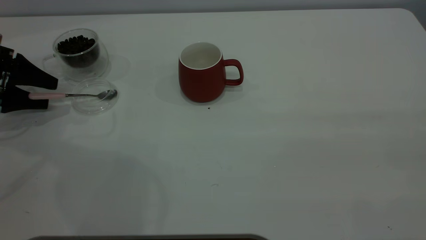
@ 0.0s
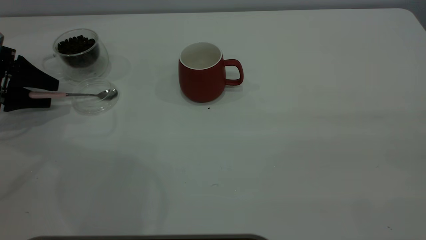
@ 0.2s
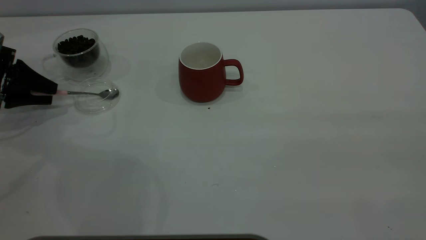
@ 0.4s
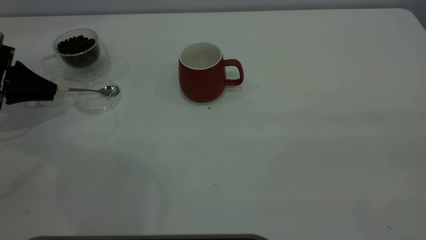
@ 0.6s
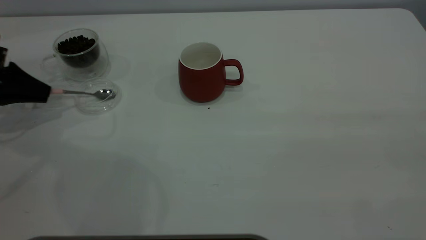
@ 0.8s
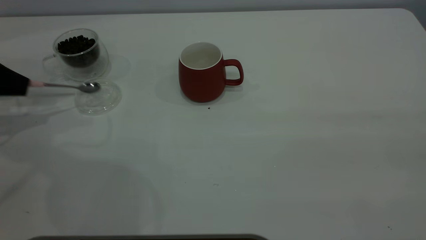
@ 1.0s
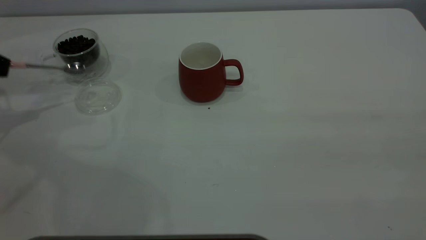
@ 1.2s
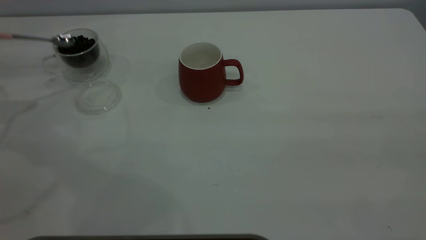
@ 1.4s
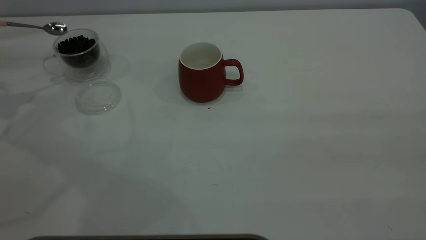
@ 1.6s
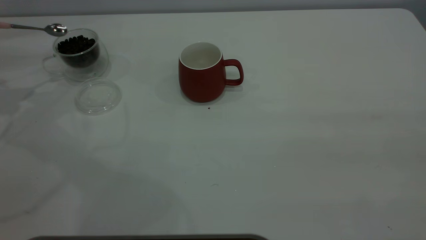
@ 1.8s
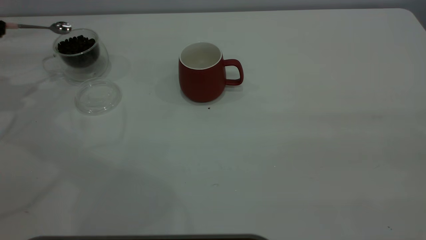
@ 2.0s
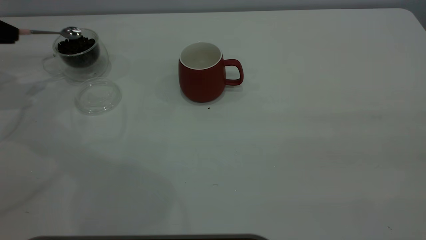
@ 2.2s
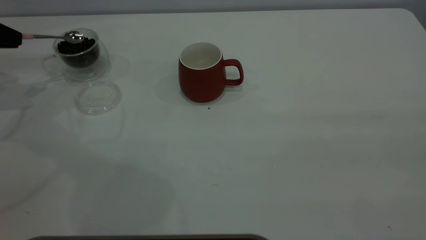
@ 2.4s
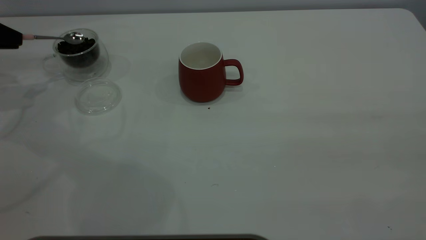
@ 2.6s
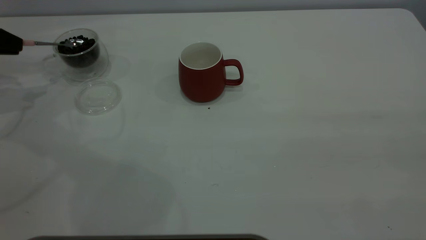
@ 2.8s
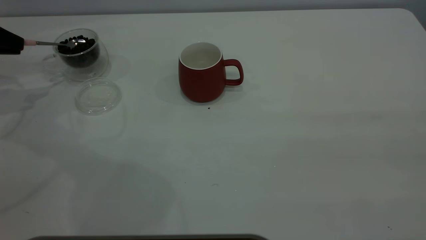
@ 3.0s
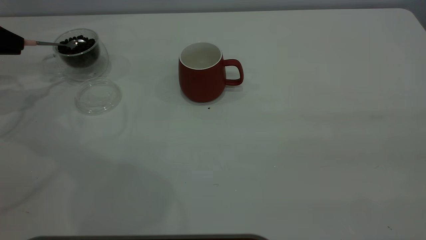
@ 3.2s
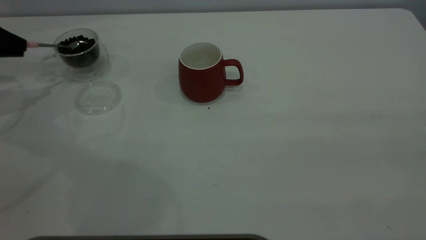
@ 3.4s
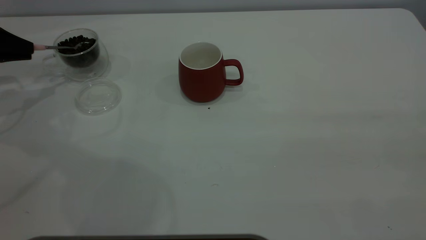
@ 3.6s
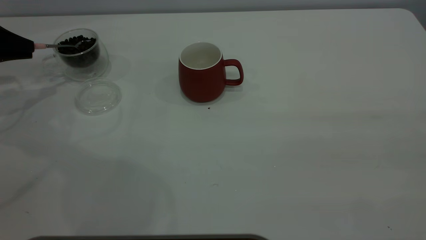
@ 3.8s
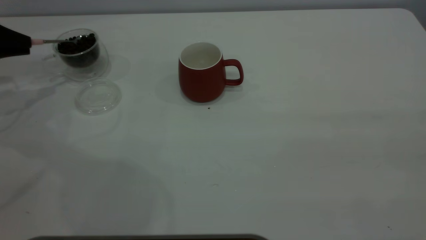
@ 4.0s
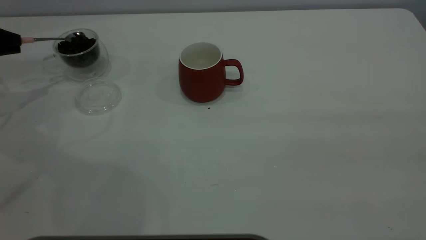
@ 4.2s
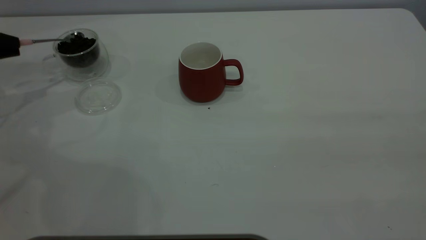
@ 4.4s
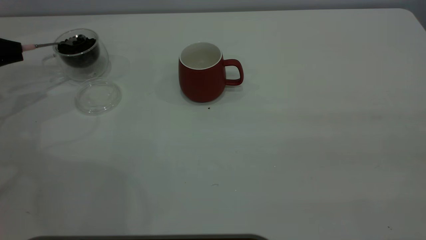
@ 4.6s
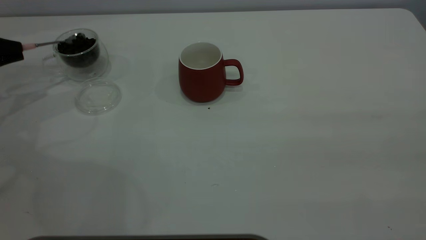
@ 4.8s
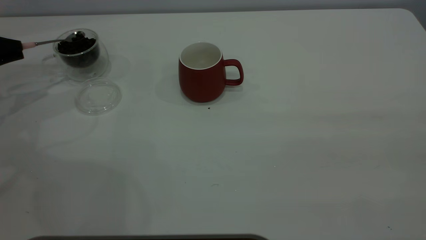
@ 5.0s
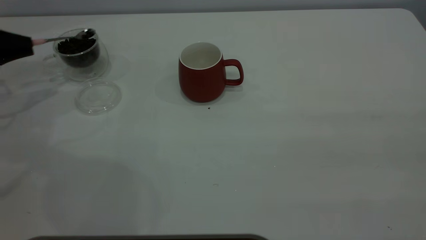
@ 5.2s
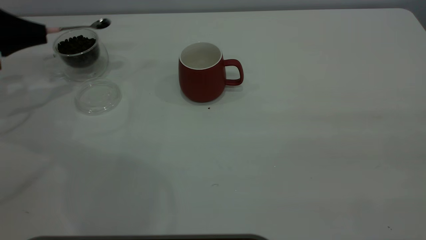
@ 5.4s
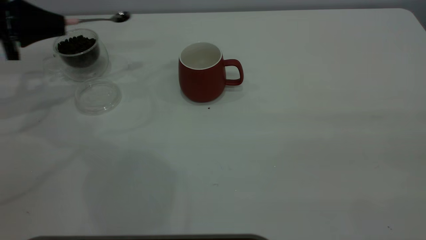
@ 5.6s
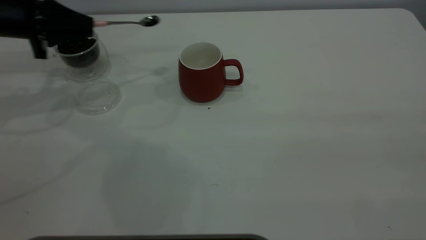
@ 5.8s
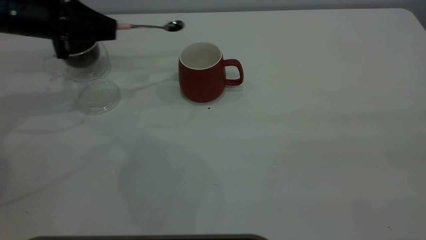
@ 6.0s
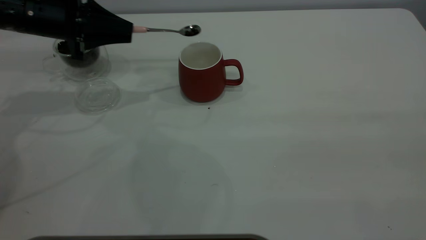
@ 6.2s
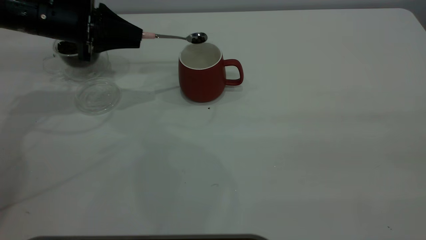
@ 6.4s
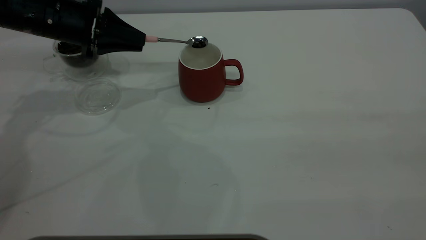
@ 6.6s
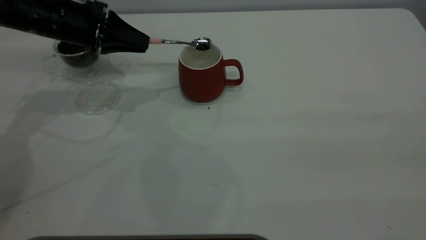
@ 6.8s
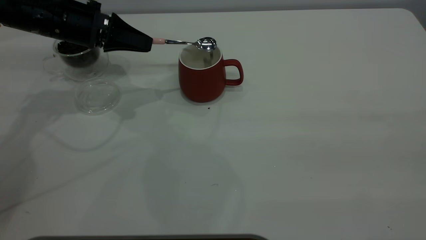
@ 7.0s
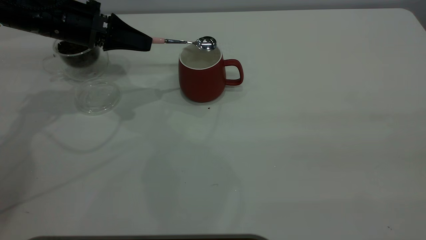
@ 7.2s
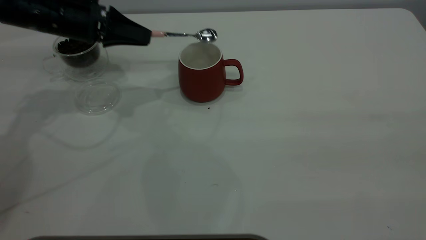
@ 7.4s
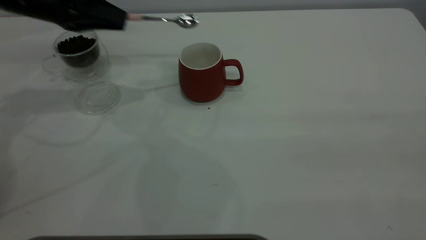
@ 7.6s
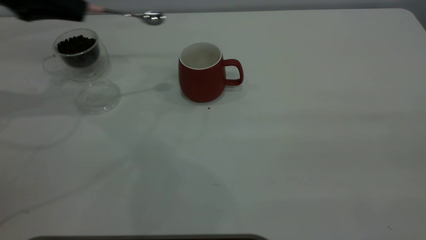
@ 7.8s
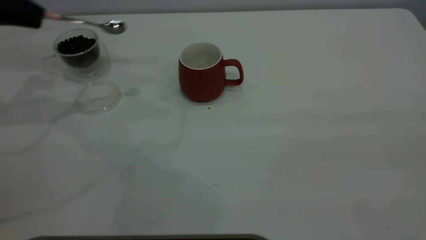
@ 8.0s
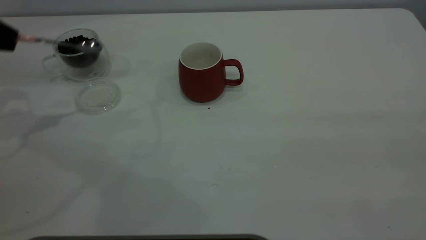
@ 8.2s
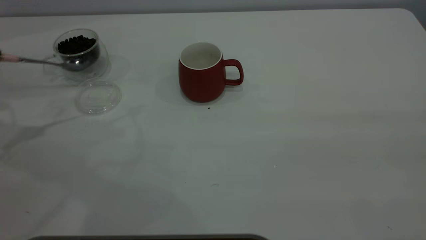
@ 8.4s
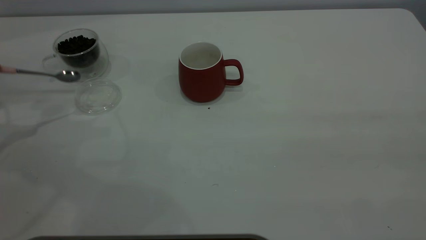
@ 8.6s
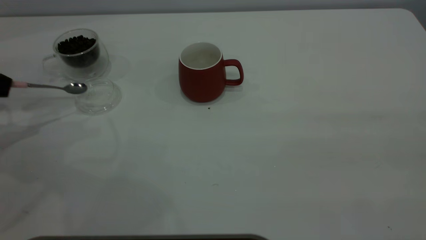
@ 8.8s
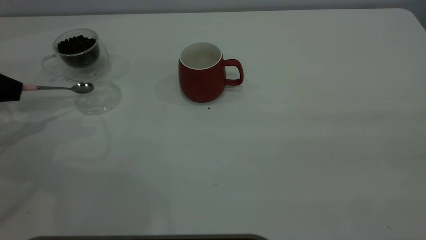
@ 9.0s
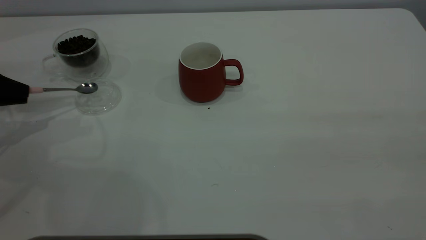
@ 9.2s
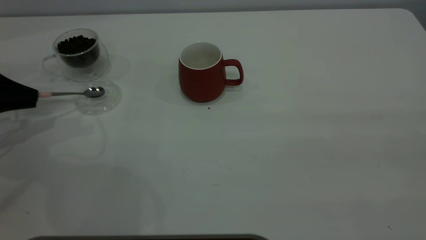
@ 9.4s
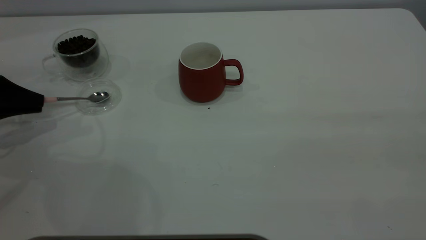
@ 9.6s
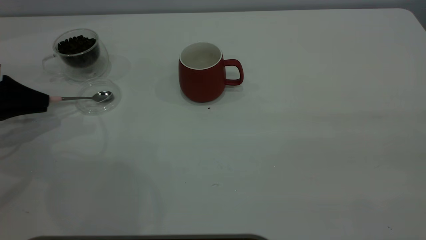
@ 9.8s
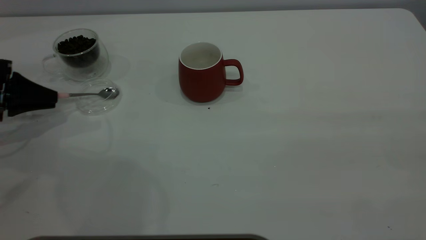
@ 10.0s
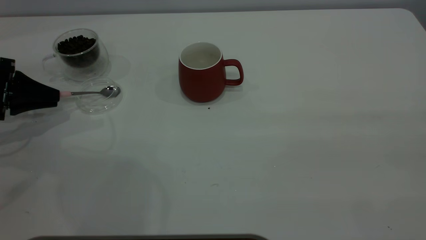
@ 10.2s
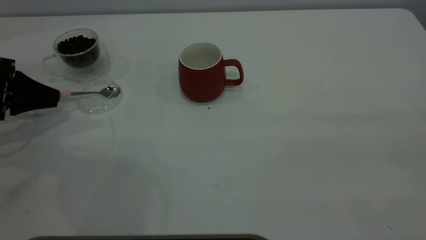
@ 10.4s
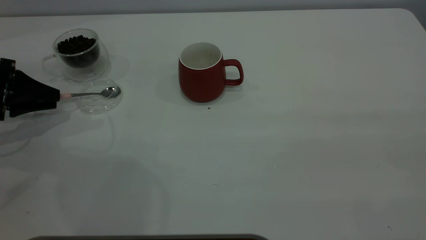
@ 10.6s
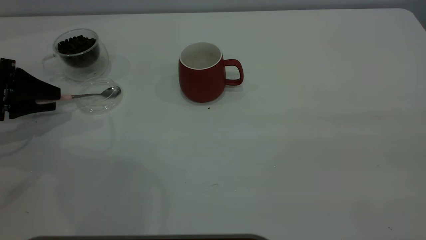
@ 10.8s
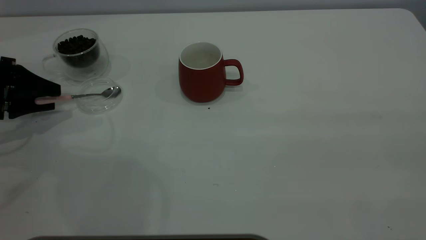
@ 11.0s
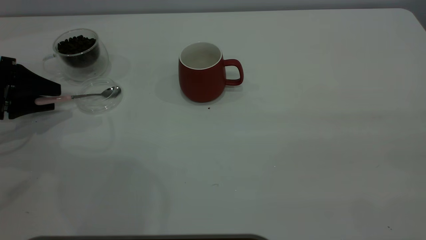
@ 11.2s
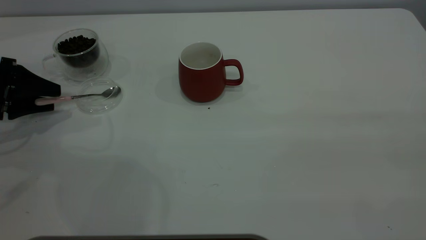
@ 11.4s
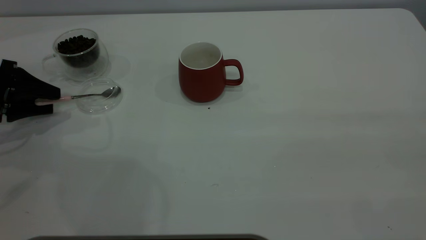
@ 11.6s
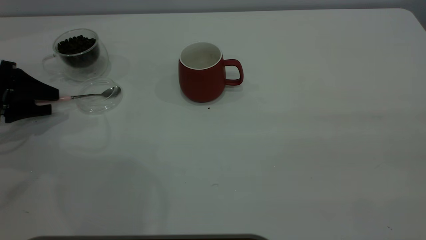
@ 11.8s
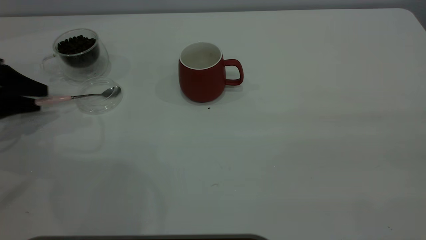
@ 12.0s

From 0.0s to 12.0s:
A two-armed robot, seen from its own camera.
Task of the whole recording: the right gripper place the red cup in the center of the table, the left gripper take the pink spoon from the cup lid and scoop out the coffee beans from the coffee cup and put them into the red cup, the left gripper put the spoon back into the cup lid.
Step, from 1.6s to 7.4s: Scoop a spoonful of beans into the cup.
From 0.0s to 1.6s: The left gripper is displaced upward by roughly 15 cm, and closes up.
From 1.6s to 3.0s: The left gripper shifts approximately 5 cm downward.
From 4.4s to 6.0s: The left gripper travels to the right by some 15 cm.
From 7.6s to 9.0s: The left gripper moves to the left, backward and downward, about 20 cm.
From 9.0s to 10.4s: The left gripper shifts by some 5 cm.
From 10.4s to 12.0s: The left gripper opens its fingers.

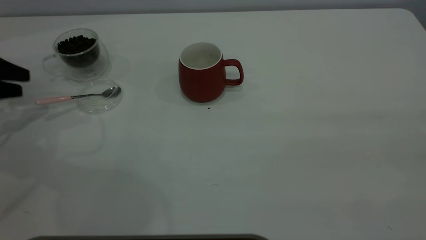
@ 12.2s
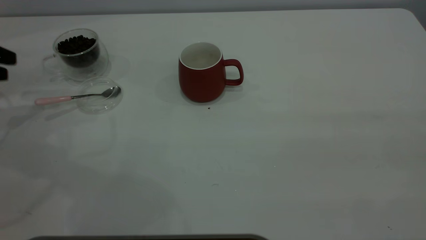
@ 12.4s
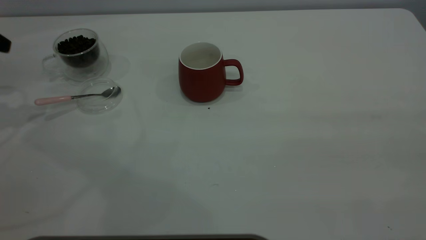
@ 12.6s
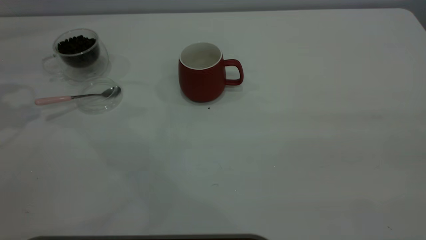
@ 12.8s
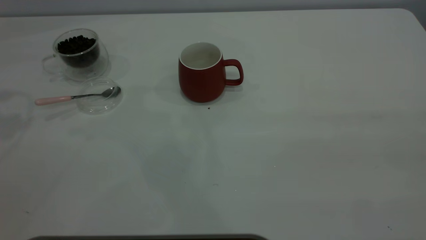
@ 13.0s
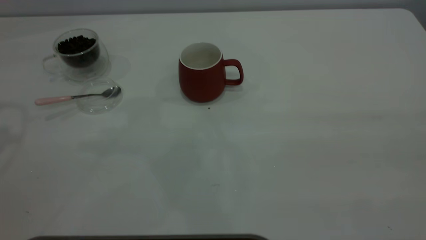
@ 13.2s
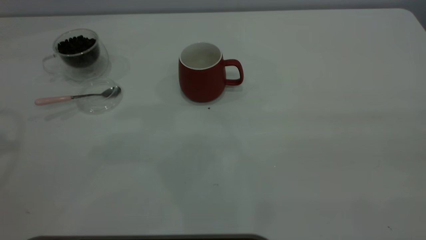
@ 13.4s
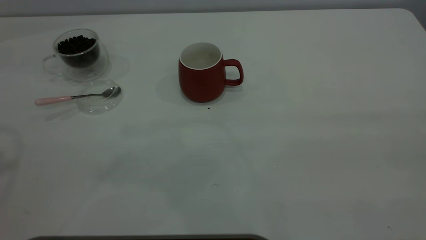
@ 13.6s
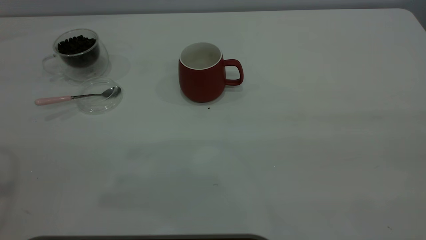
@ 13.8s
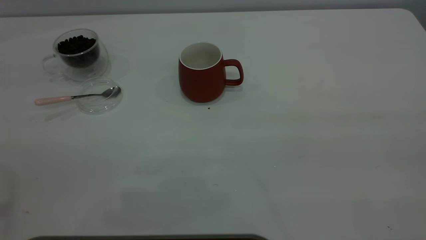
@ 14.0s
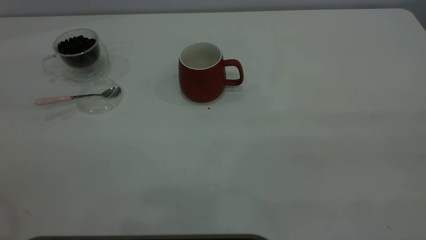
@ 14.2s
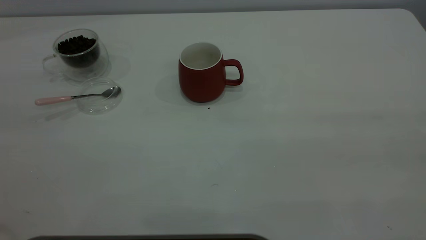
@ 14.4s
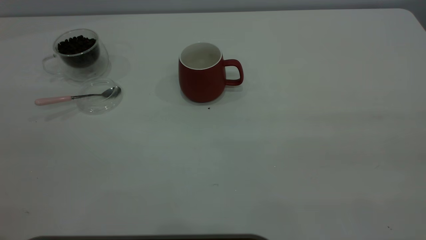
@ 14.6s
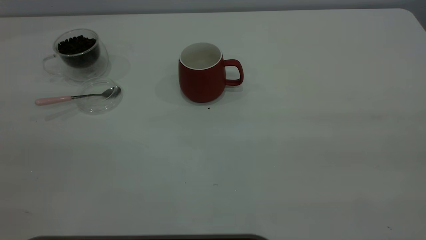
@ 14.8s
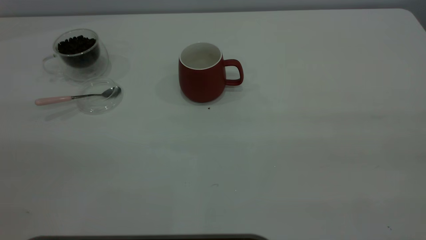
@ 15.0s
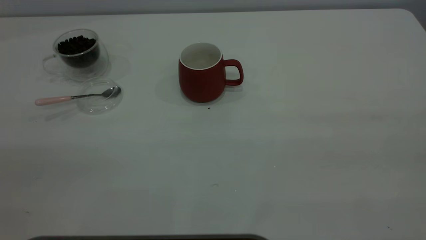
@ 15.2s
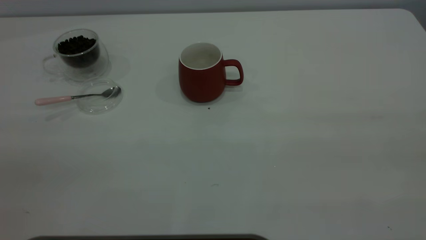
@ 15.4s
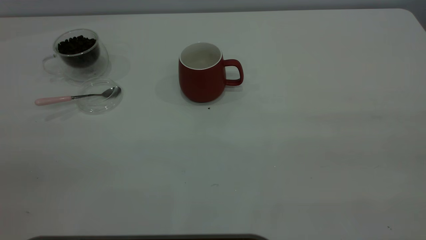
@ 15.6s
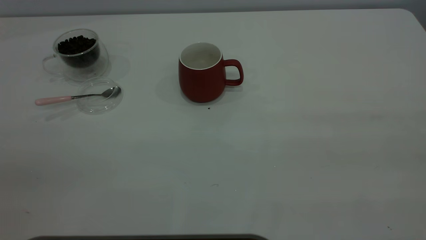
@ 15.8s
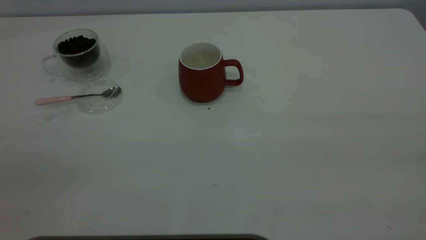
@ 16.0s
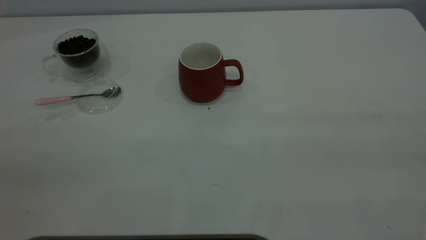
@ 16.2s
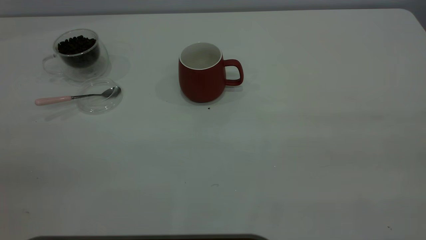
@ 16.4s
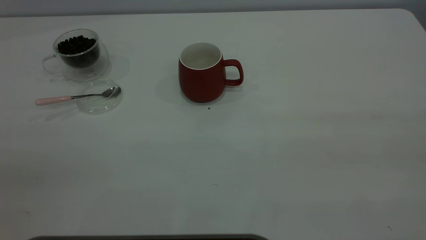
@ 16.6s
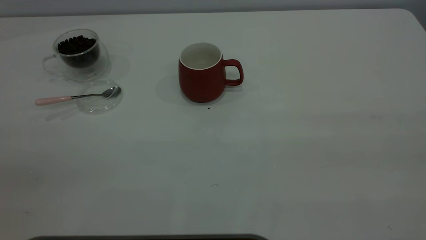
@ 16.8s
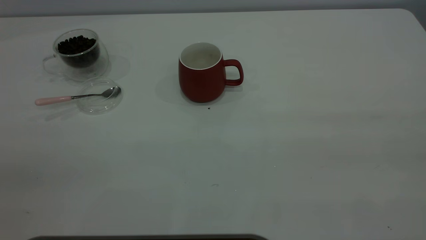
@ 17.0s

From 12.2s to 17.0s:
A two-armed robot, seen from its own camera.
Task of the whole recording: the right gripper place the red cup in the center of the table, the left gripper take the pink spoon from the cup lid and scoop out the coffee beans from the coffee cup and put them into the red cup, the left gripper put the spoon back into the cup lid.
From 12.2s to 13.8s: The left gripper travels upward and backward by about 35 cm.
From 15.4s to 17.0s: Both grippers stay about where they are.
